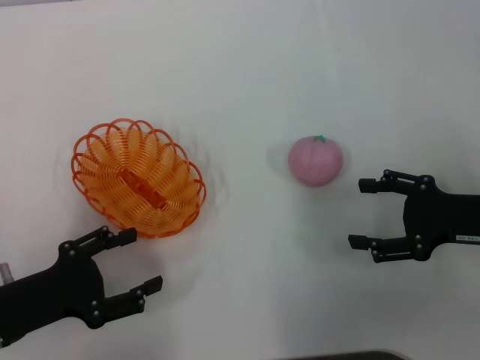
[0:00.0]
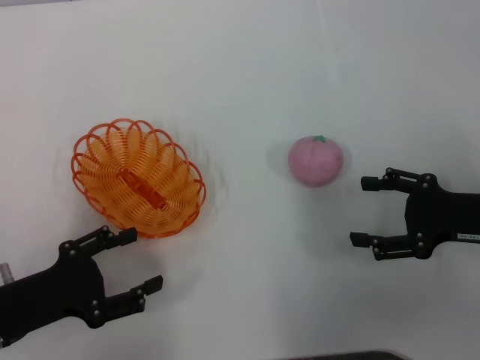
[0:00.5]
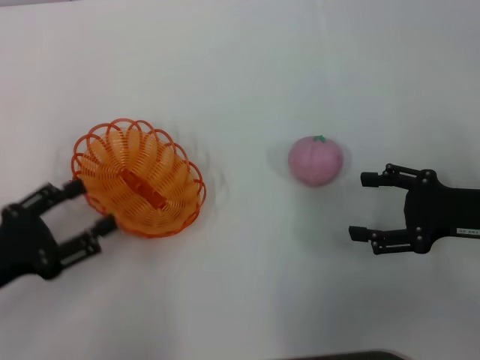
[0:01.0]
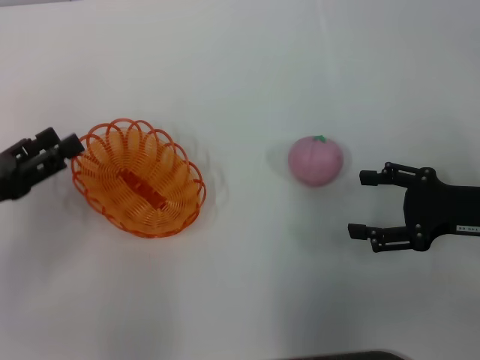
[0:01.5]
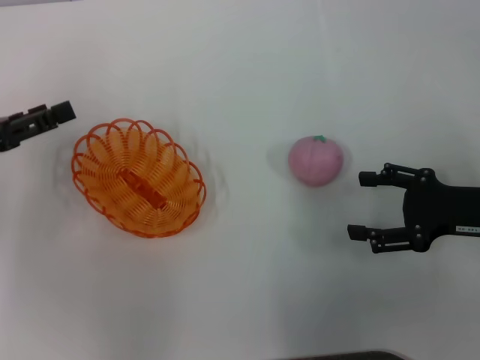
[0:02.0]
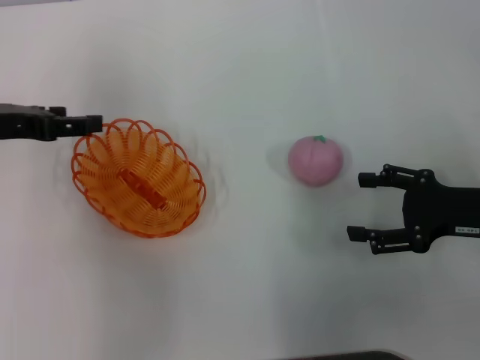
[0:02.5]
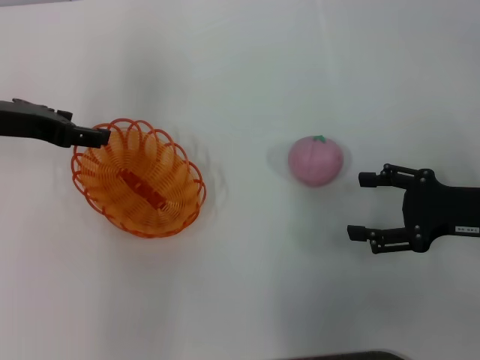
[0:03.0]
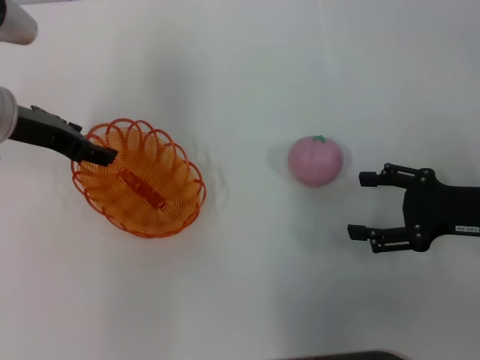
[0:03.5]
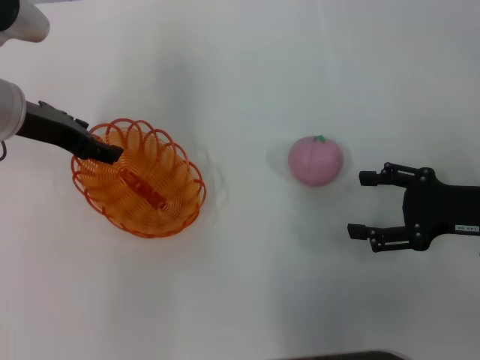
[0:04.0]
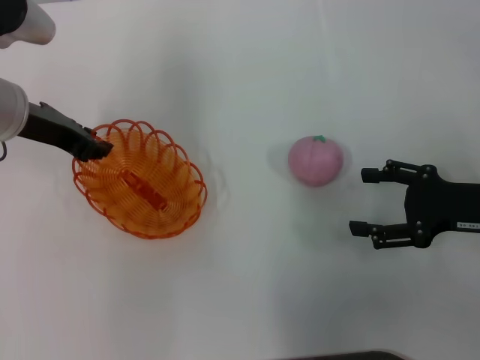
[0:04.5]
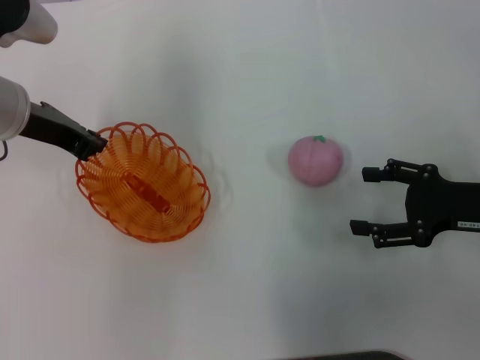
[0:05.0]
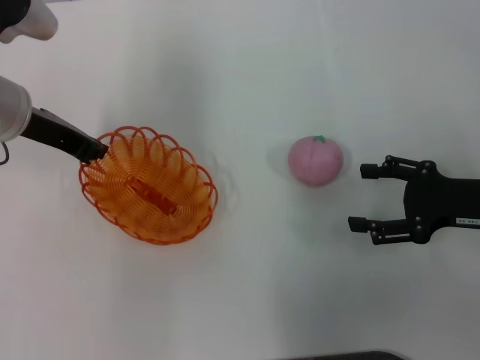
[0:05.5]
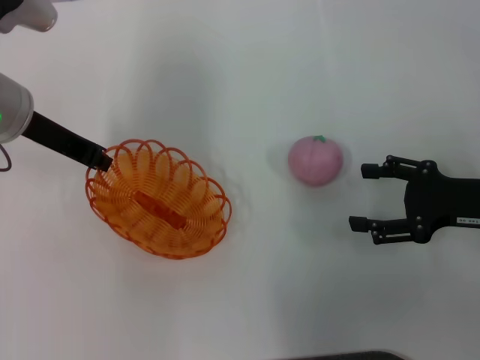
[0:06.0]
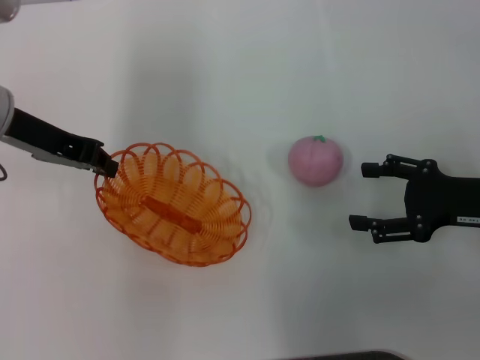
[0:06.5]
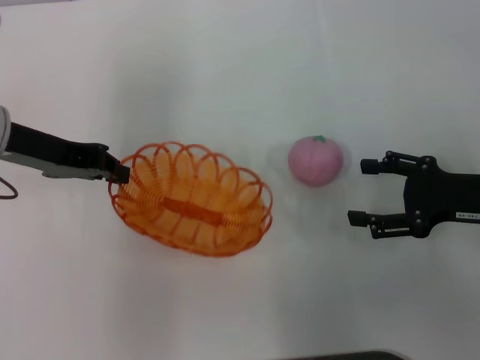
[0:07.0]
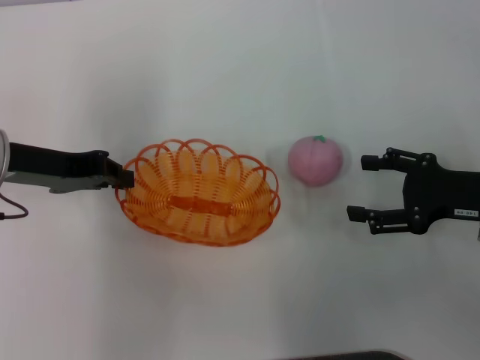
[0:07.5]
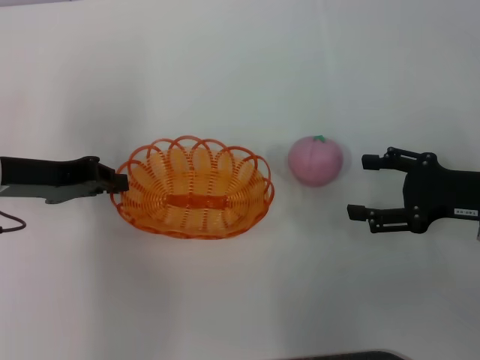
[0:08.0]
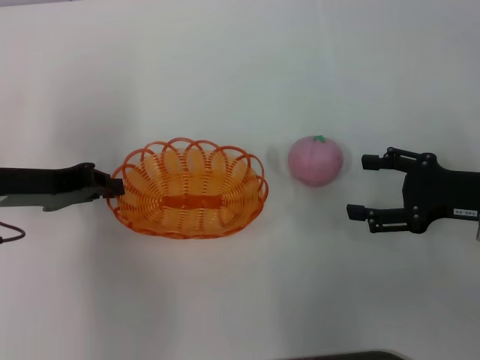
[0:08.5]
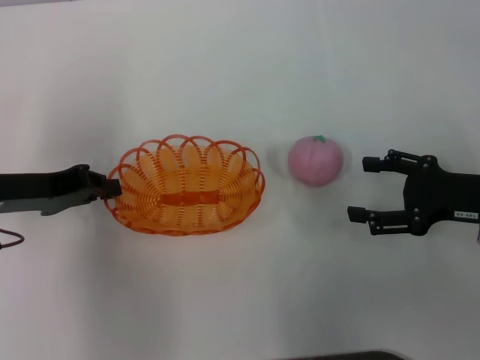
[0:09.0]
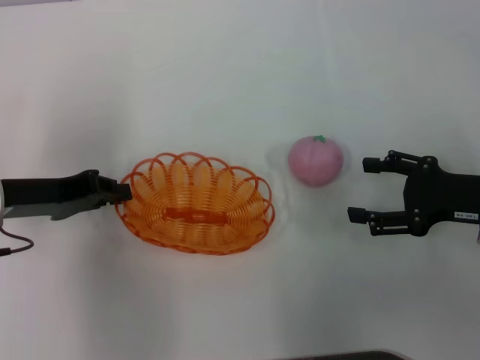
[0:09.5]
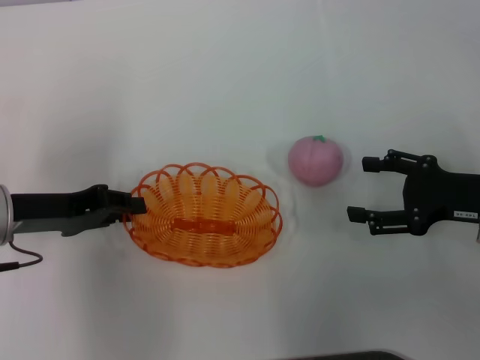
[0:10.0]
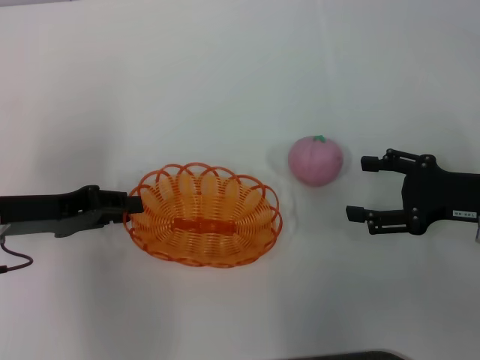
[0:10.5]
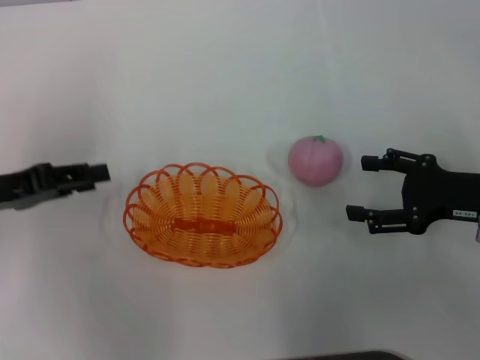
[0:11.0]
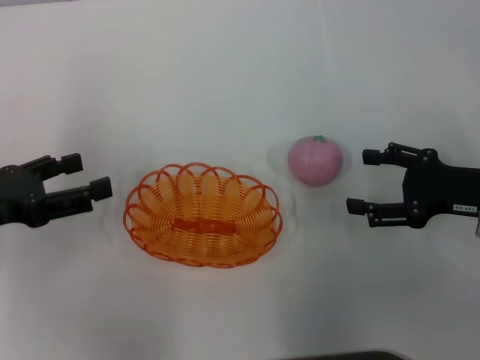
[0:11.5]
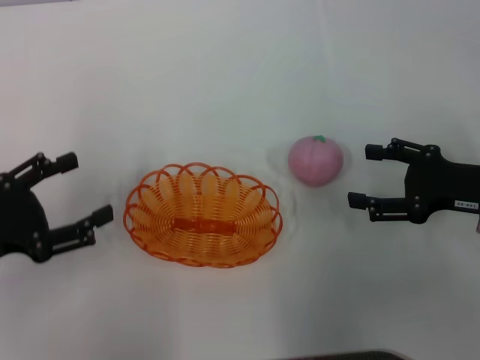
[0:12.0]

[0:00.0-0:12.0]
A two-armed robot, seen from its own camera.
Step, 0:00.0 to 0:07.0: Pick up the basket with the left gripper.
0:00.0 to 0:02.0: The left gripper goes about 15 cm forward and upward.
0:02.0 to 0:04.0: The left gripper shifts approximately 15 cm to the right and forward.
0:04.0 to 0:06.0: The left gripper closes.
0:06.0 to 0:08.0: The left gripper goes approximately 5 cm backward.
0:08.0 to 0:10.0: The grippers make only small movements.
0:10.0 to 0:12.0: The left gripper shifts roughly 10 cm backward and to the left, and opens its fingers.

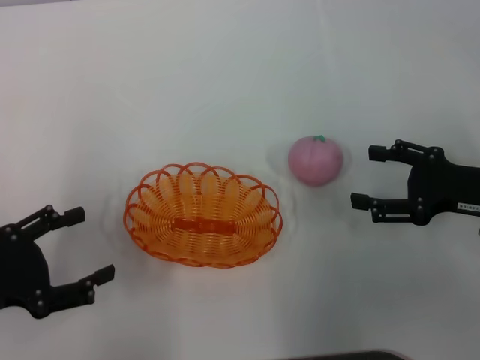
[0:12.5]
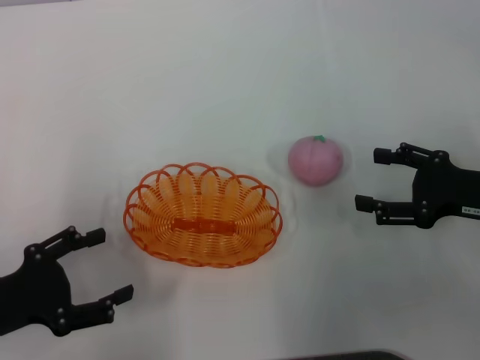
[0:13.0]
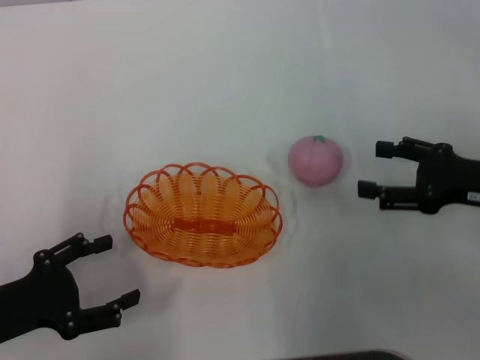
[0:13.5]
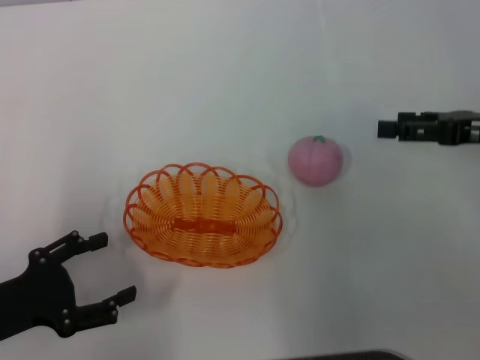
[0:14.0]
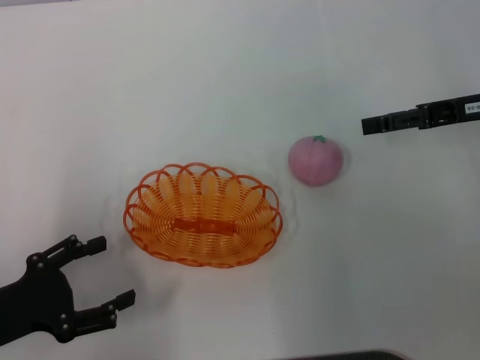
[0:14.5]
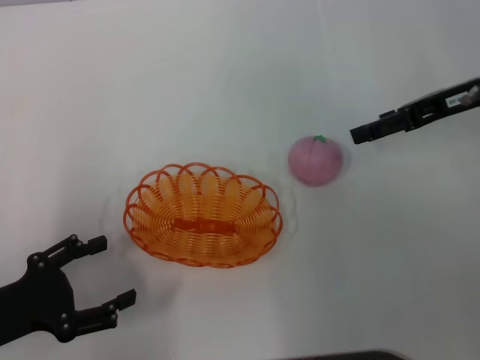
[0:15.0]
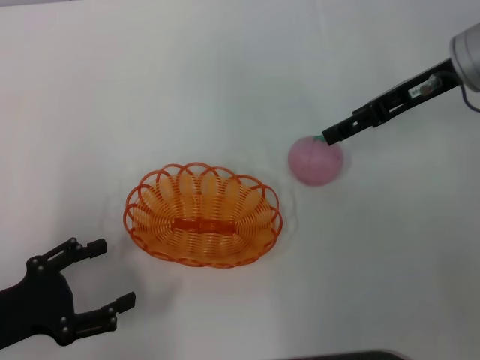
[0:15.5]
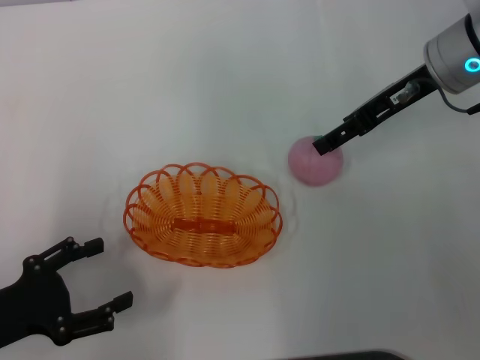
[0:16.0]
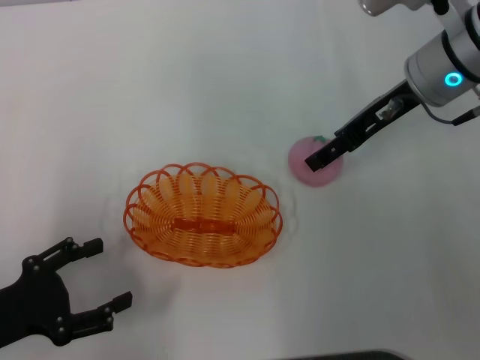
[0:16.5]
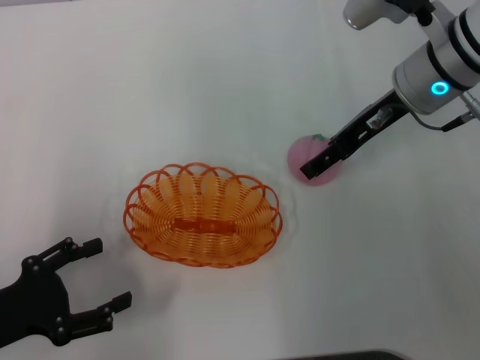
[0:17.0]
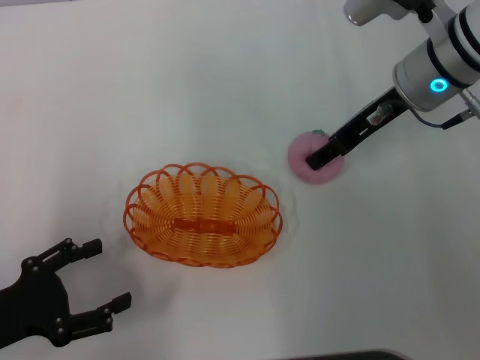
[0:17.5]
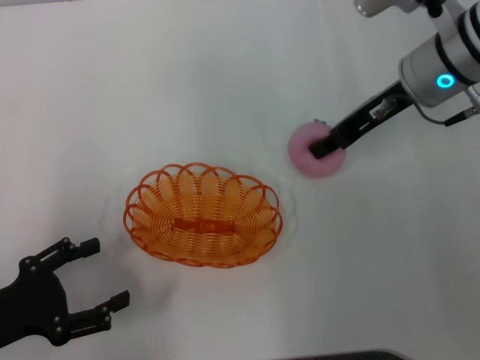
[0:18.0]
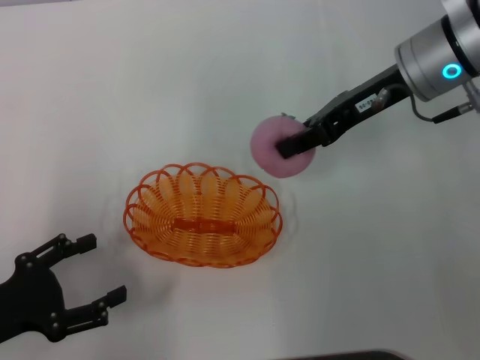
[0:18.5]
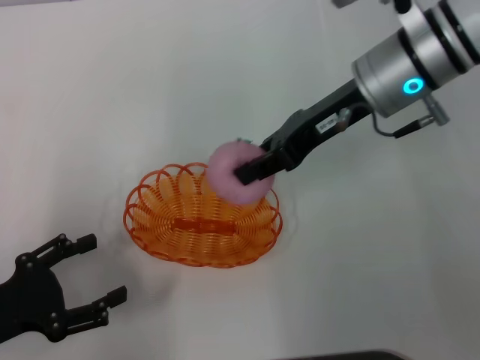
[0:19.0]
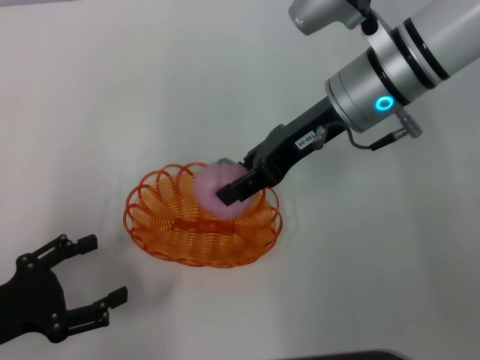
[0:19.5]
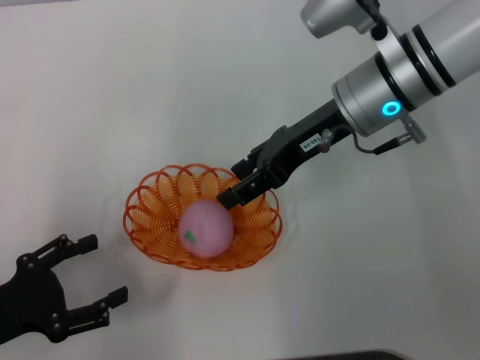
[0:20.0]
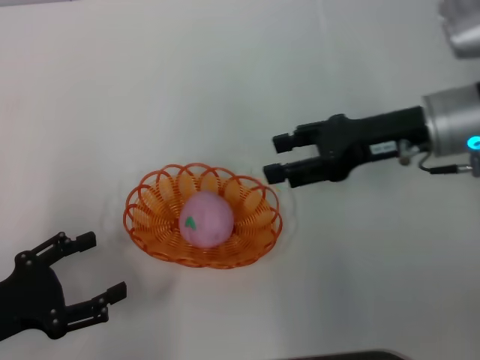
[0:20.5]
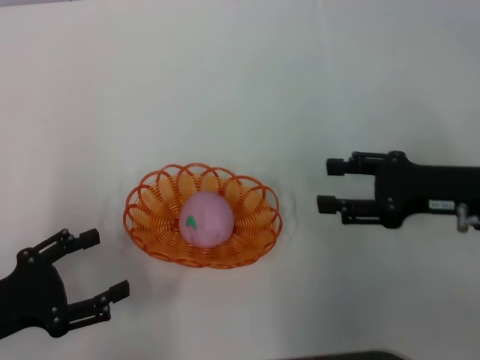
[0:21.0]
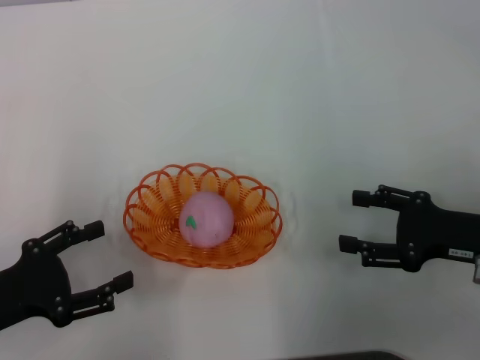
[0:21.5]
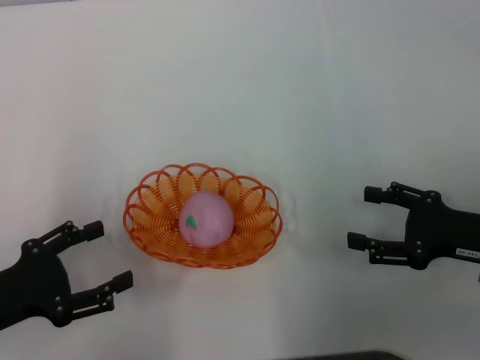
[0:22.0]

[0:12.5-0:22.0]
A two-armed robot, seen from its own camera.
Step, 0:13.0 to 0:18.5: Pick up the peach with the right gripper.
Step, 0:19.0 to 0:20.5: Place the peach into the basket with the right gripper.
0:12.5 to 0:14.5: The right gripper is displaced forward and upward by approximately 10 cm.
0:14.5 to 0:16.5: The right gripper heads to the left, covering about 10 cm.
0:16.5 to 0:18.0: The right gripper closes up.
0:18.0 to 0:20.0: The right gripper goes some 5 cm to the left, and opens.
0:20.0 to 0:22.0: The right gripper is displaced to the right, backward and downward by about 25 cm.

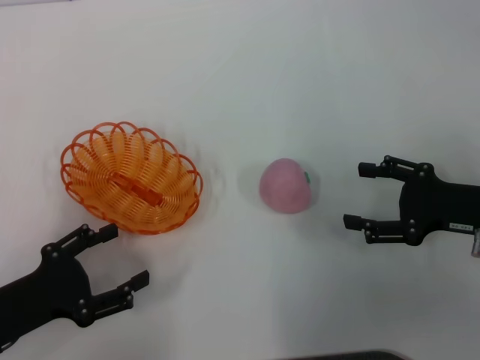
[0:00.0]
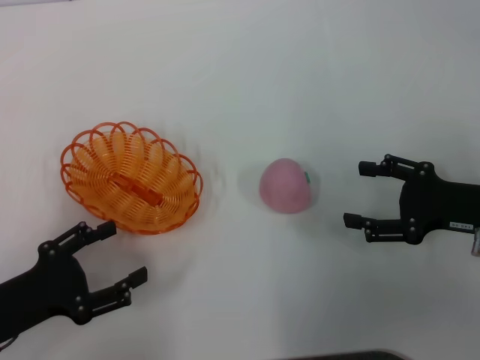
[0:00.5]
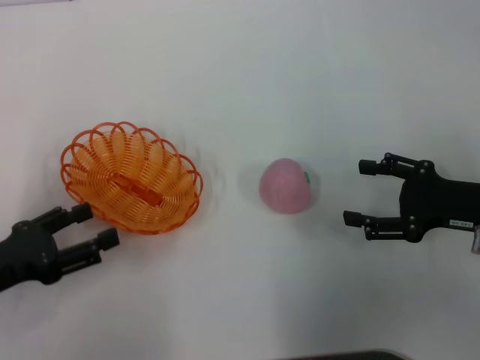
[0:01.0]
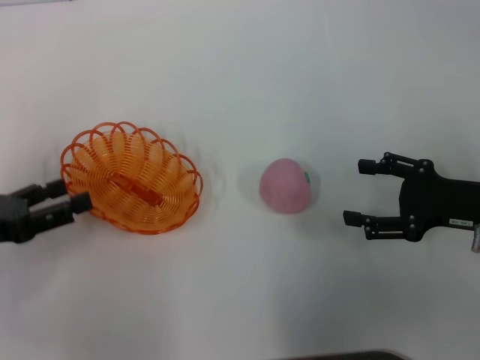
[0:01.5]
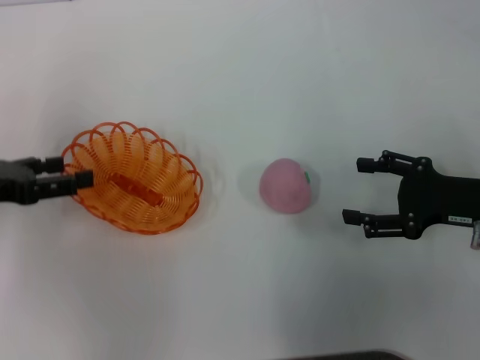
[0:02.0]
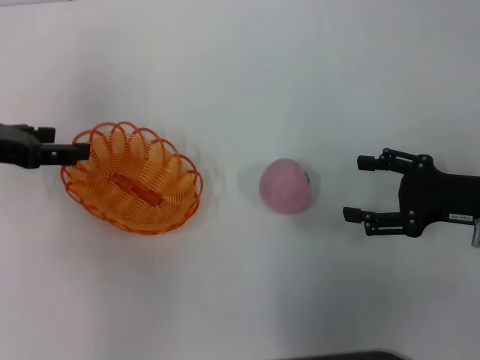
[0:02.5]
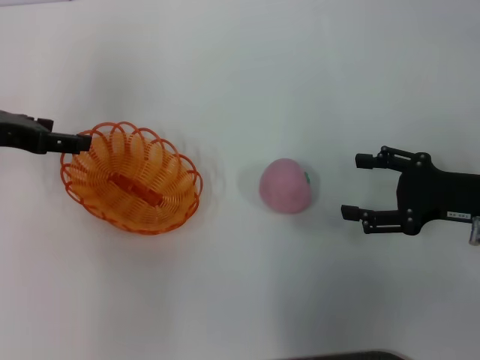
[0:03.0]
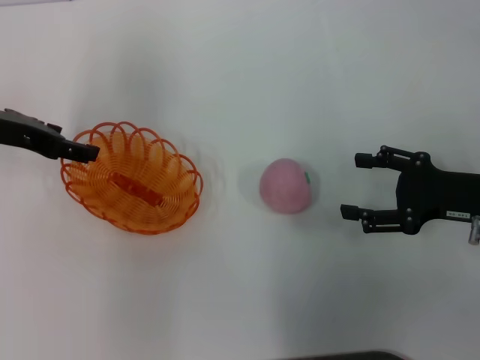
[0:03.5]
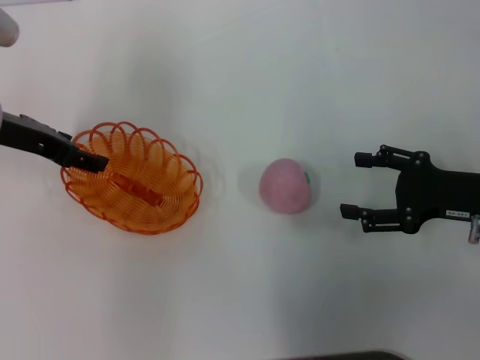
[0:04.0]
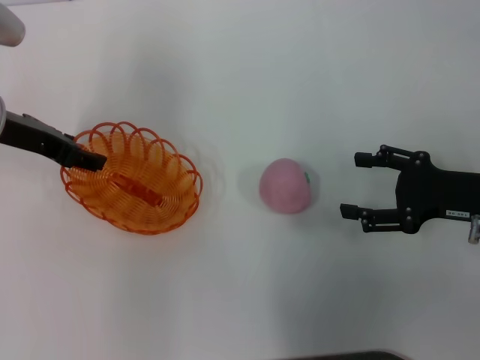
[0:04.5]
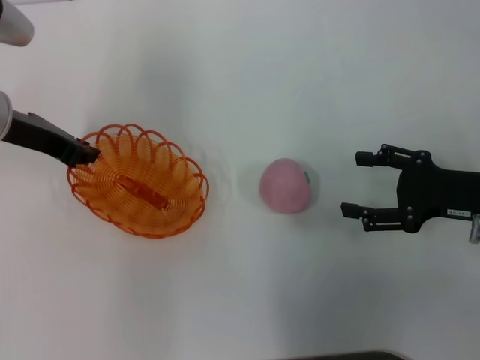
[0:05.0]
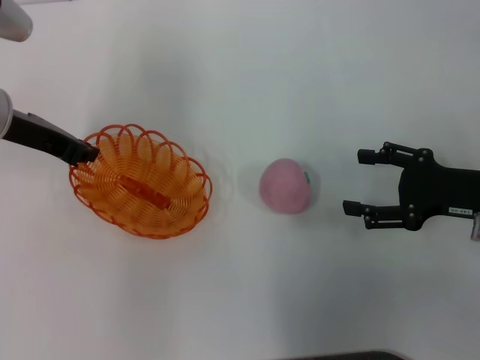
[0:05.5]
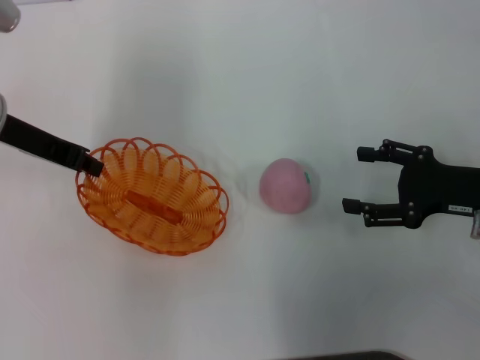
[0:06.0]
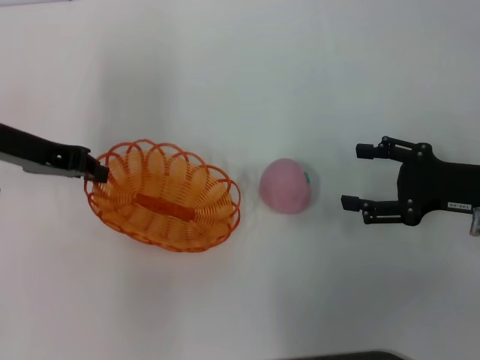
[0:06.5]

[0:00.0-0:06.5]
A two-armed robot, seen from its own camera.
Step, 0:00.0 to 0:05.0: Pick up the basket with the left gripper.
0:00.0 to 0:02.0: The left gripper shifts approximately 15 cm forward and upward.
0:02.0 to 0:04.5: The left gripper goes approximately 10 cm forward and to the right.
0:04.5 to 0:06.5: The left gripper closes.
